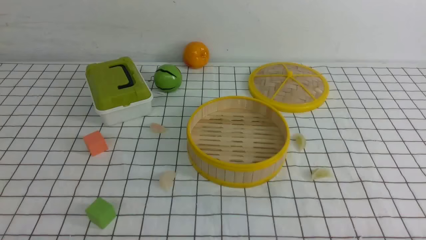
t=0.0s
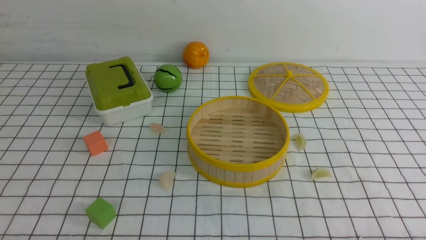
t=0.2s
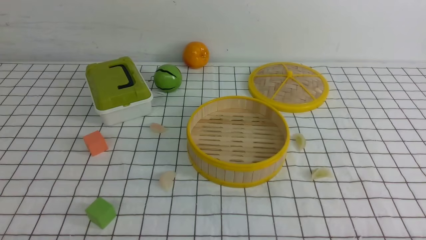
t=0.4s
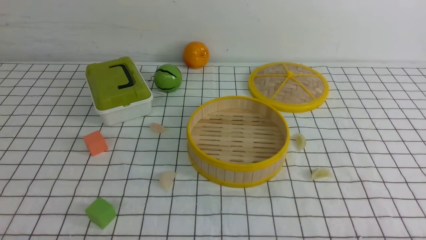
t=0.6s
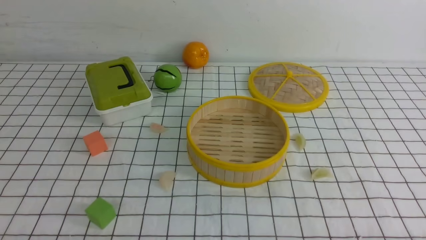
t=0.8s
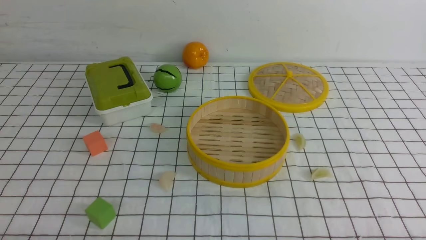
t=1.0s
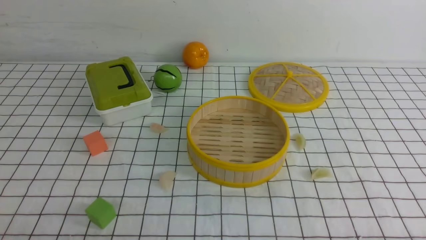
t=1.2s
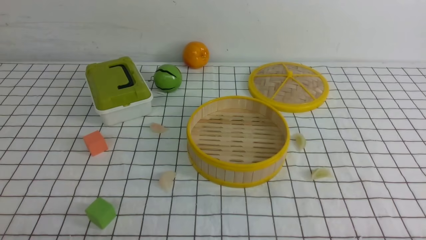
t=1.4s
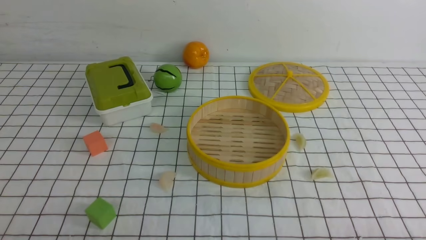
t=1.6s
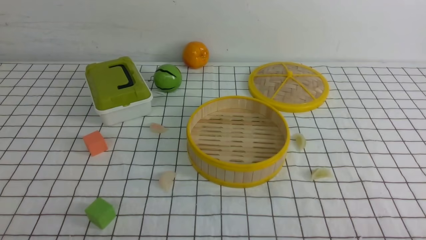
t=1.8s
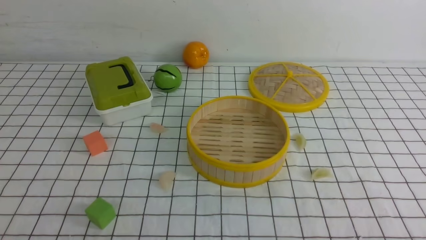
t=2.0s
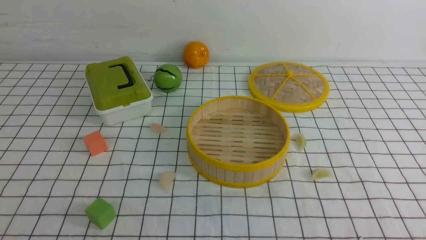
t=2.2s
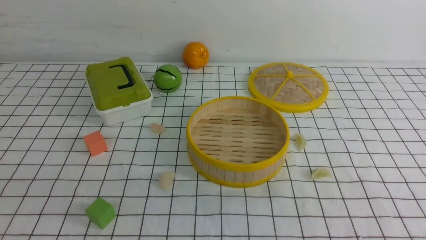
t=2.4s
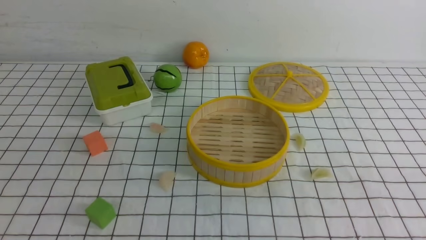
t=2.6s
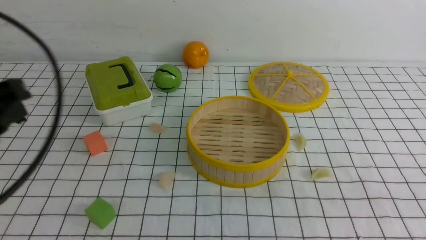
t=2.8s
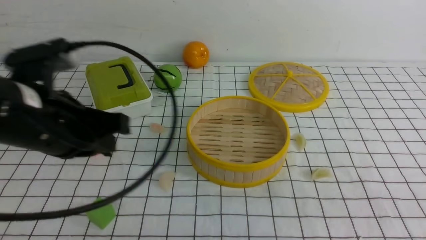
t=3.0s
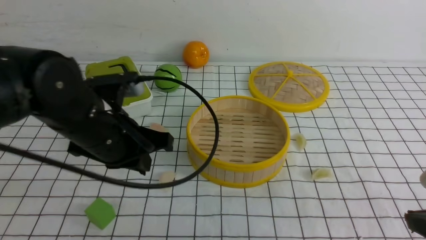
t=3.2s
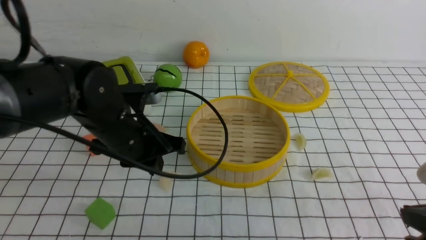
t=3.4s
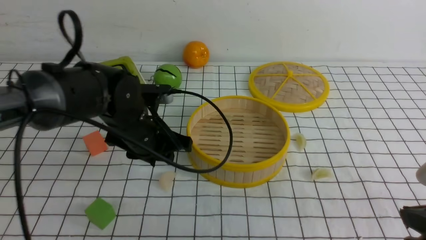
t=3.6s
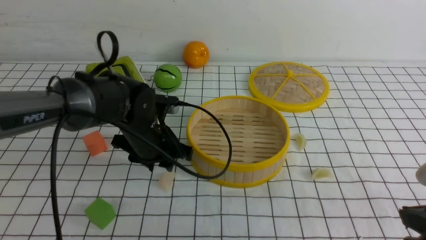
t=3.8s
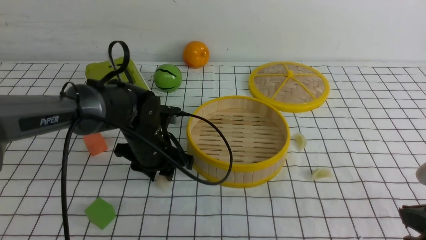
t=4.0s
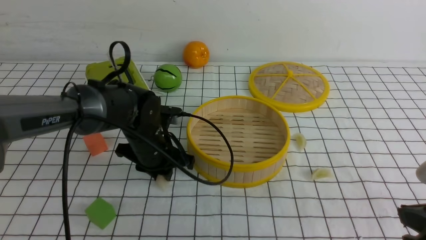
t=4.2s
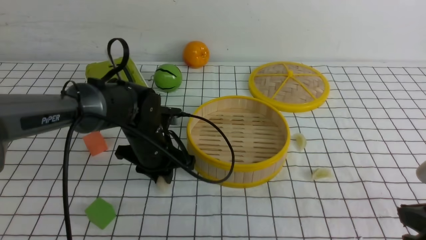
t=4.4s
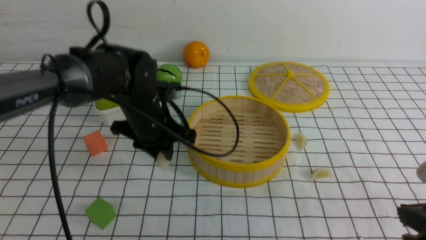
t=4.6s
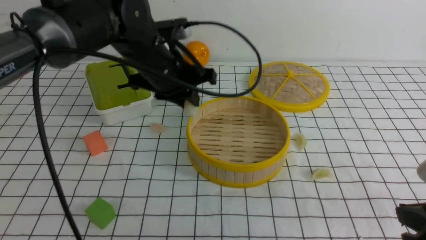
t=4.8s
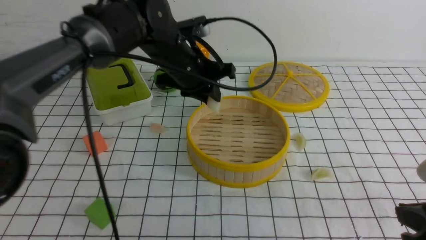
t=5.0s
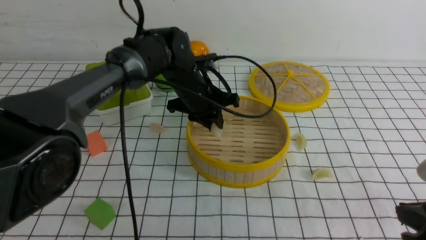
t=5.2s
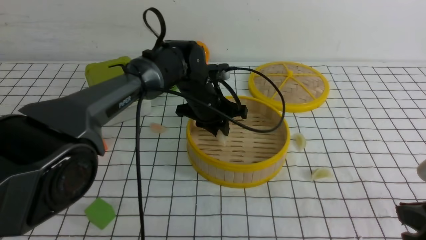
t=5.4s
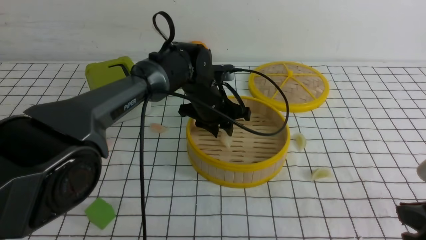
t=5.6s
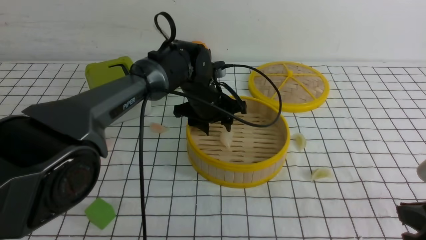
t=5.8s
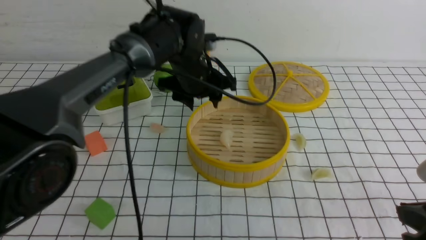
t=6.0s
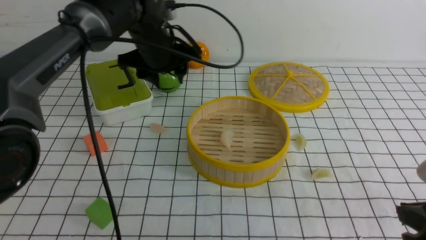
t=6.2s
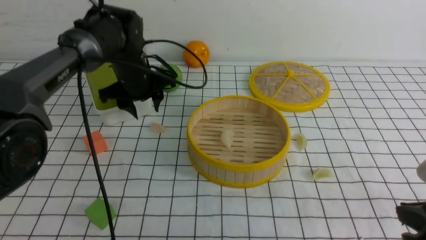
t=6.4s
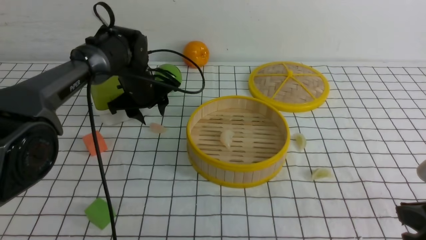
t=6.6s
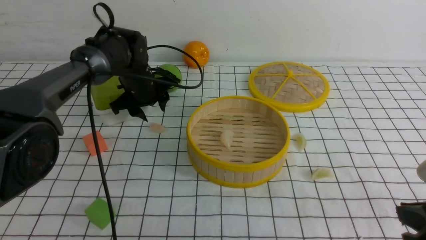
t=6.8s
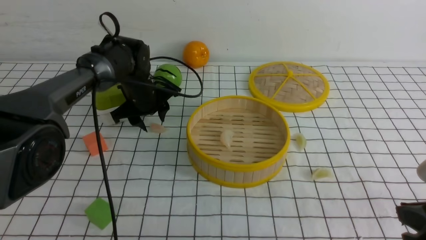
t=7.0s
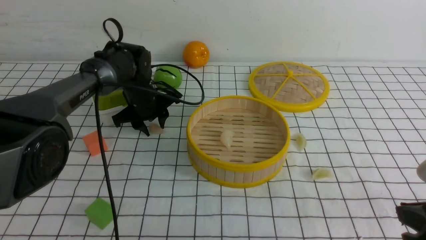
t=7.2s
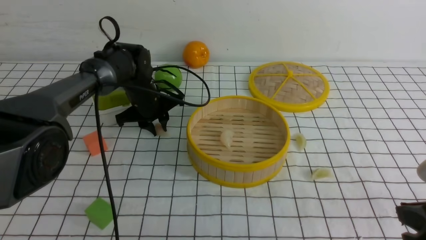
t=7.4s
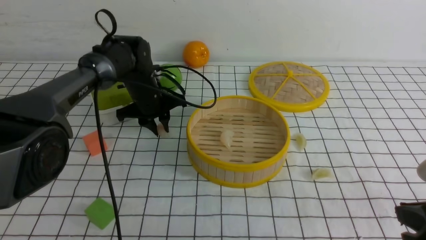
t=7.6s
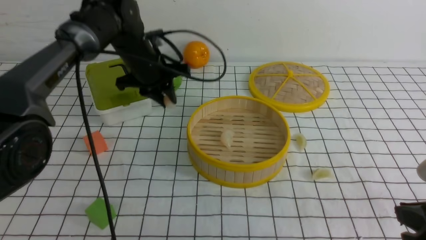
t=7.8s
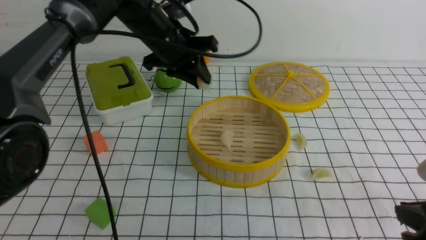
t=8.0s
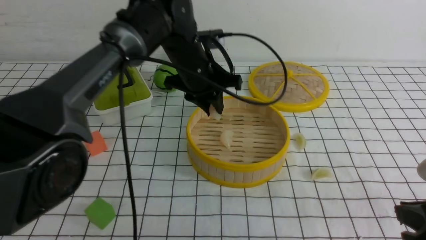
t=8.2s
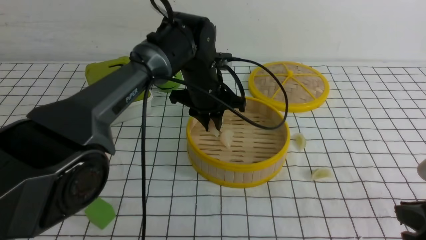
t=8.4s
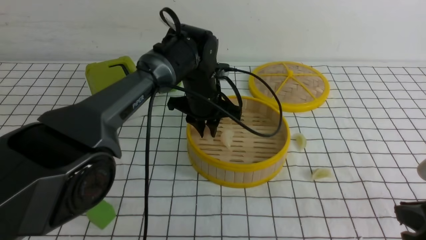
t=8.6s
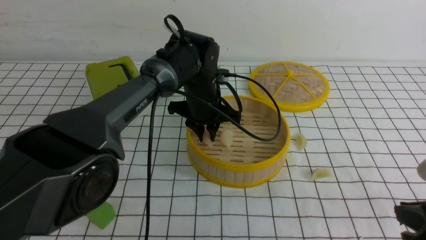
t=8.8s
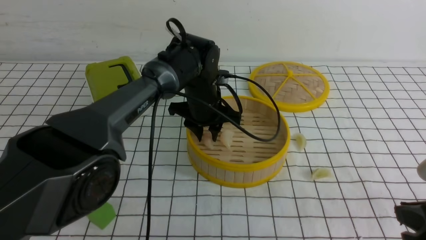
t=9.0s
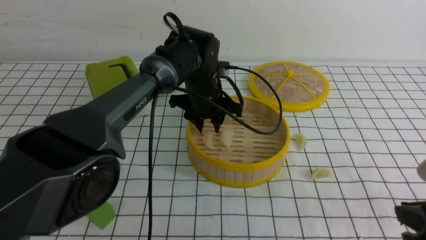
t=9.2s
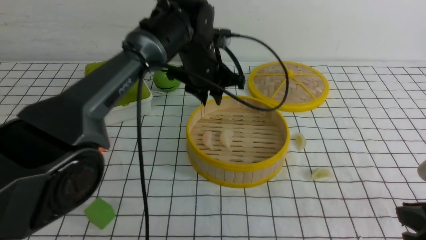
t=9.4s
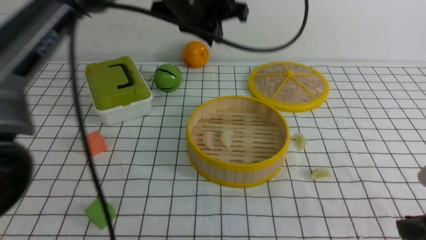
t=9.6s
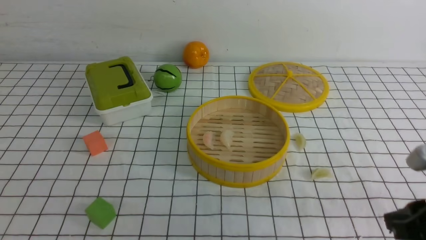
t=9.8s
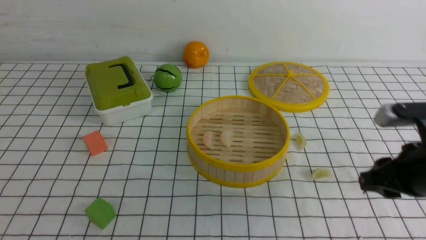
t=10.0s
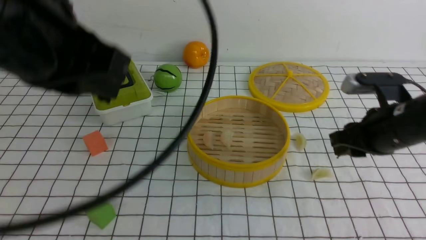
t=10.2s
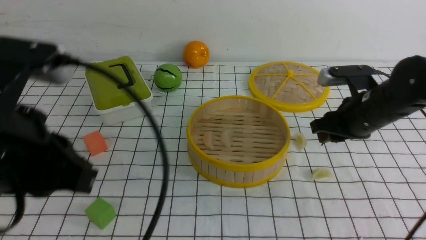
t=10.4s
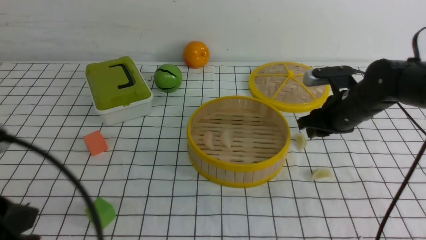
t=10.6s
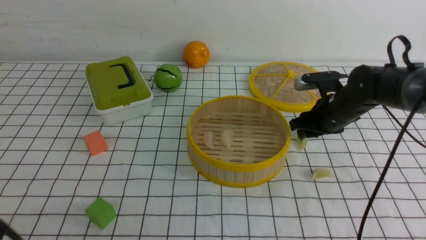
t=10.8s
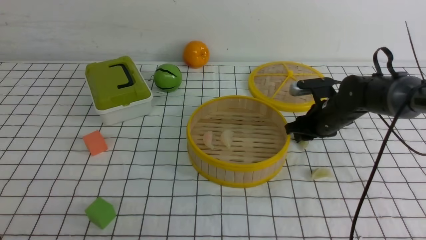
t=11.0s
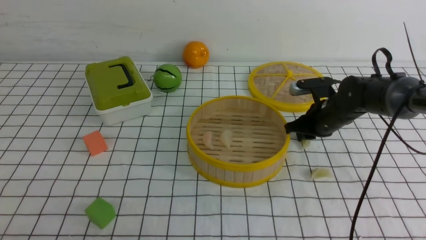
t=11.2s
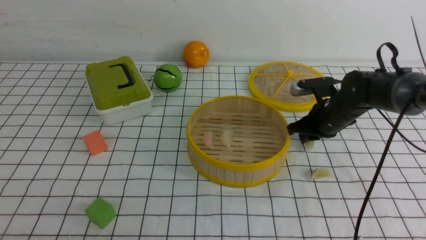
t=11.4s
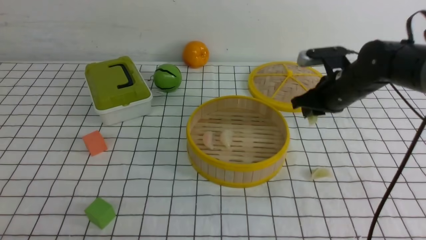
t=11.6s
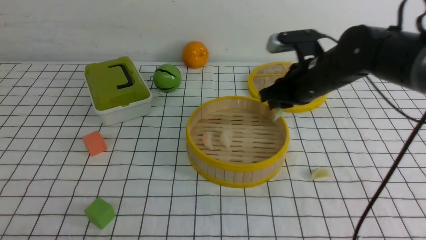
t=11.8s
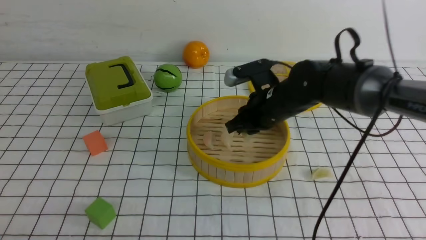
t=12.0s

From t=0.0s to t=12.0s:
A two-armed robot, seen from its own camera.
Task of the whole recording: put the dumplings into the steamer on the table with the white tablecloth.
Step, from t=0.0s to t=4.6s: use the left arm to grab a dumpling.
Step, from t=4.8s to t=5.8s: use the left arm to put the dumpling into the steamer.
Step, from t=6.0s to t=7.8s: use the left arm to grab a dumpling.
Step, from t=8.0s to t=9.4s: use the left arm to put the dumpling into the steamer.
Step, from t=9.6s to t=11.6s: use the right arm to grab a dumpling.
From t=1.6s to t=3.0s: The right gripper goes approximately 10 cm upward and forward. Meanwhile the left gripper travels forward, upward and to the right by approximately 25 cm, and closes up.
From t=3.0s to t=4.4s: The left gripper heads forward, downward and to the right, covering about 20 cm, and opens up.
From t=4.4s to t=6.0s: The left gripper swings up and down, roughly 10 cm each way, with 2 reversals, and opens up.
From t=6.0s to t=7.6s: The left gripper heads to the left and downward, covering about 10 cm, and closes its fingers.
From t=7.6s to t=9.0s: The left gripper travels to the right by about 10 cm.
From t=9.0s to t=10.4s: The left gripper is displaced backward, to the left and upward by approximately 40 cm, and closes up; the right gripper shifts about 20 cm forward, and opens.
From t=10.4s to t=12.0s: The left gripper moves backward, downward and to the left, roughly 15 cm; the right gripper moves to the left, roughly 10 cm, and closes its fingers.

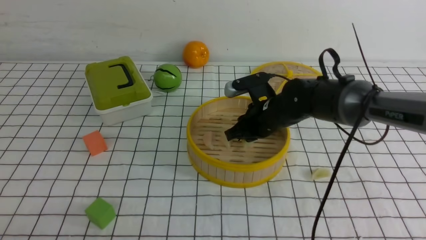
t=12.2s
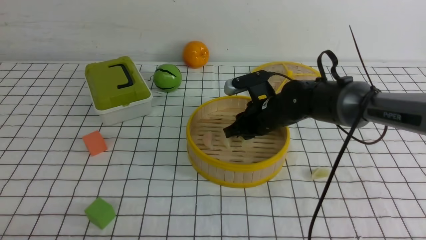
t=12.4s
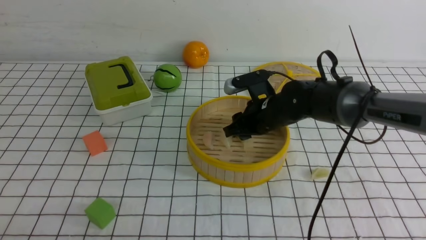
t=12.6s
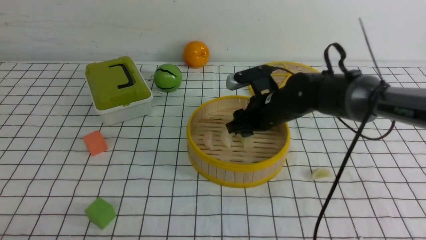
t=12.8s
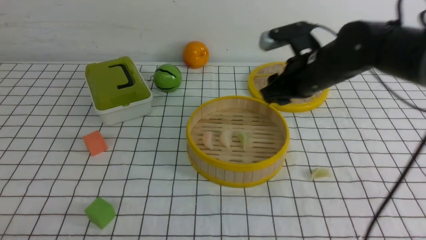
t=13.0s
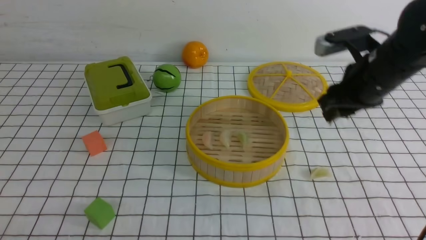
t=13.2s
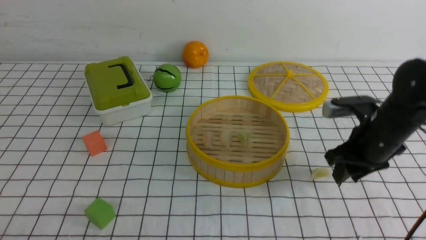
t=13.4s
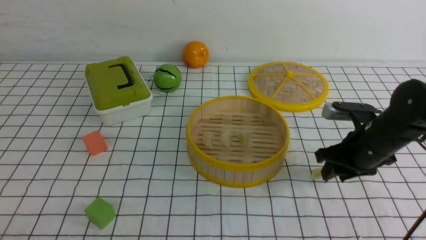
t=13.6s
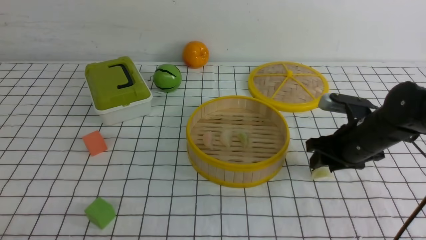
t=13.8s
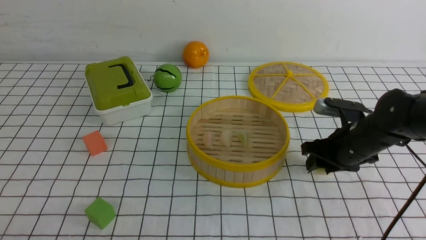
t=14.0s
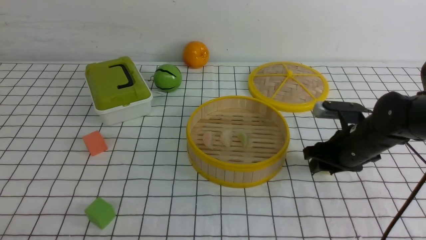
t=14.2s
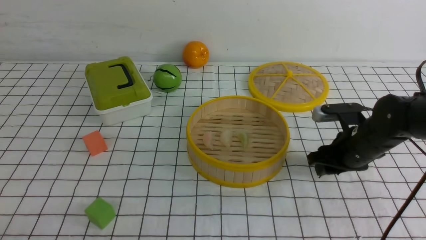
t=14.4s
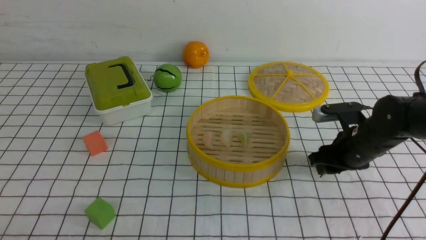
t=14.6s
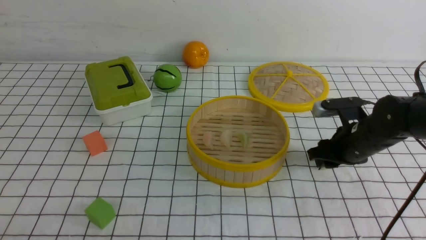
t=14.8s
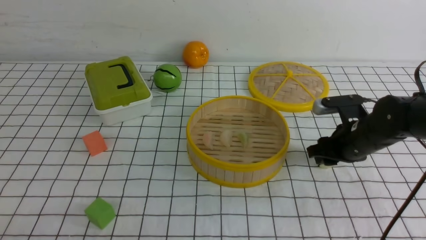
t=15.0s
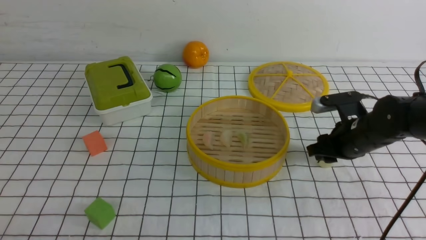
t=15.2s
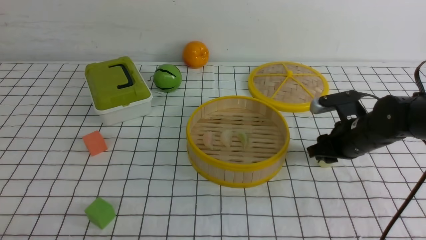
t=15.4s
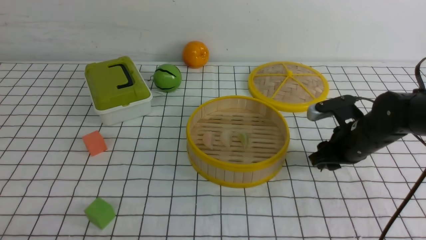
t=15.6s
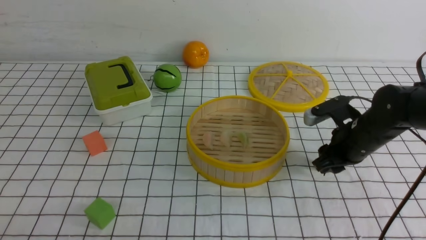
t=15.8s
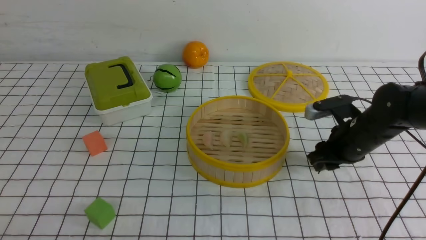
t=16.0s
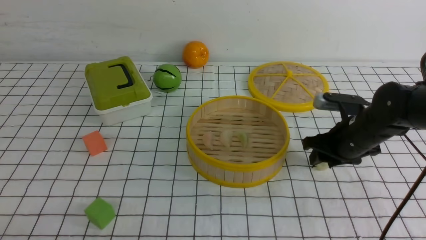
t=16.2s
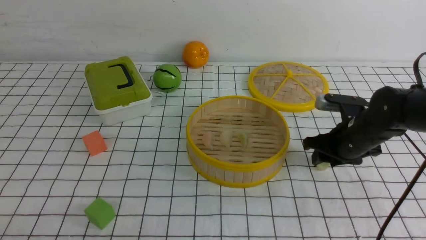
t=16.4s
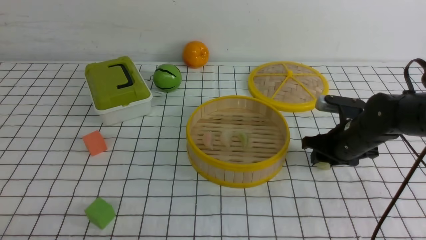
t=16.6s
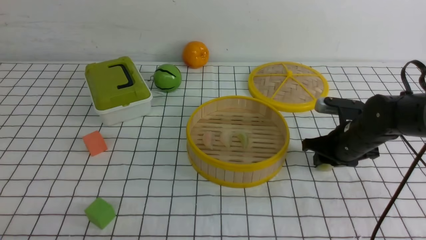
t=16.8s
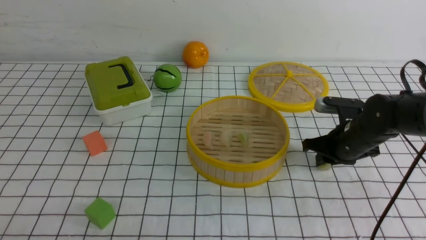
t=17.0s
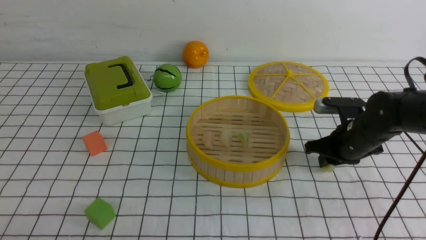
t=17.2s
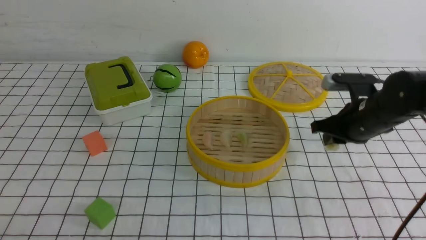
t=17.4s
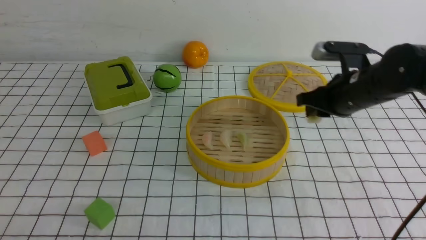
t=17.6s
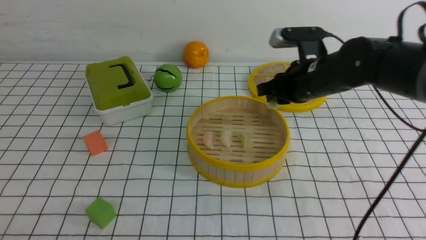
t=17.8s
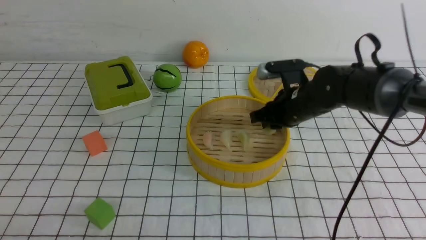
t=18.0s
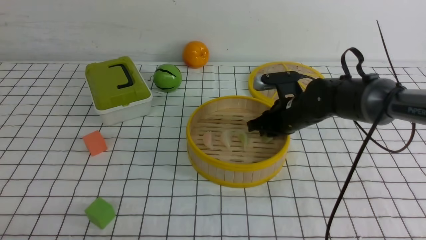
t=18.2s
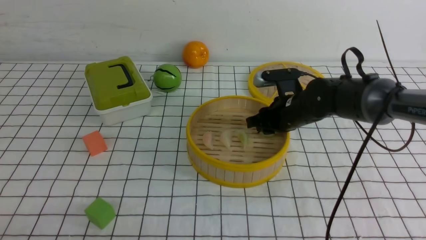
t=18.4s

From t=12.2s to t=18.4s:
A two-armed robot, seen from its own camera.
Task of the whole recording: put the dumplings into the steamer on the table with the white tablecloth.
Step, from t=12.2s to t=12.8s: use the right arm to put the dumpling into the steamer.
Step, from t=13.0s to t=17.2s: use the right arm to grab a dumpling.
From t=12.2s to t=13.8s: The right gripper goes some 15 cm to the right and backward, and opens its fingers.
From t=16.8s to t=18.4s: The right gripper goes about 10 cm to the left.
